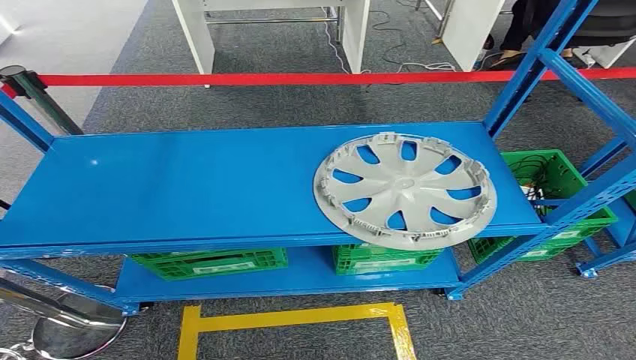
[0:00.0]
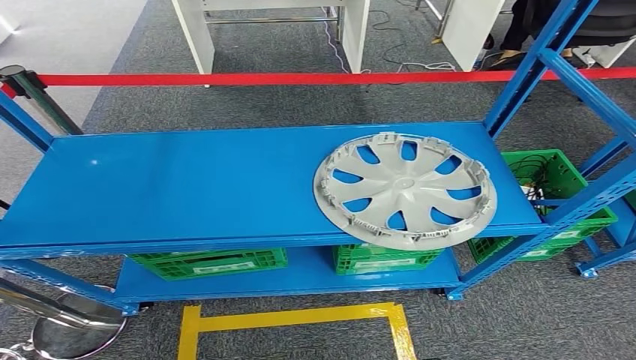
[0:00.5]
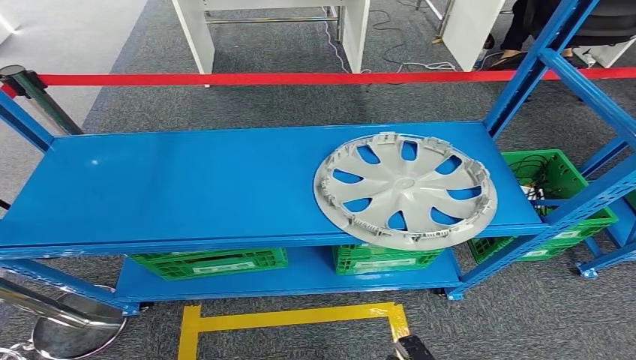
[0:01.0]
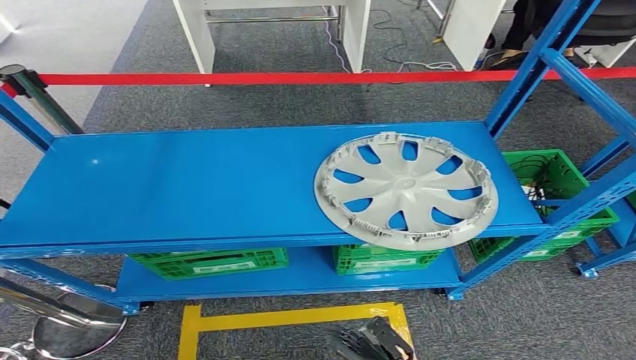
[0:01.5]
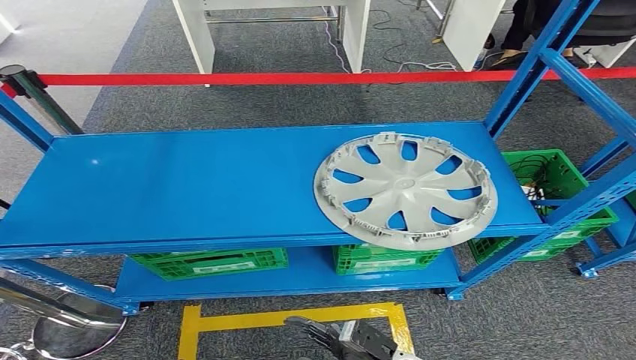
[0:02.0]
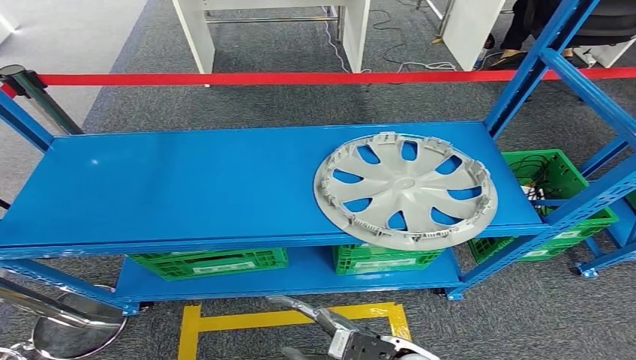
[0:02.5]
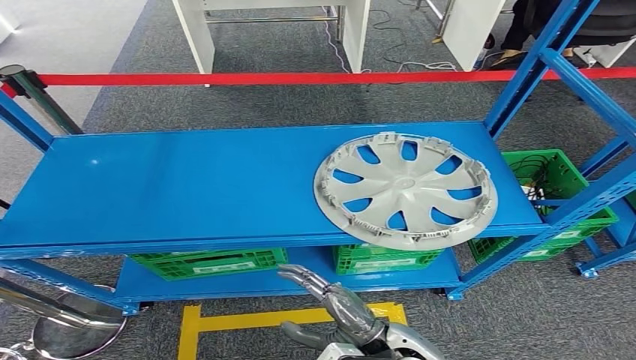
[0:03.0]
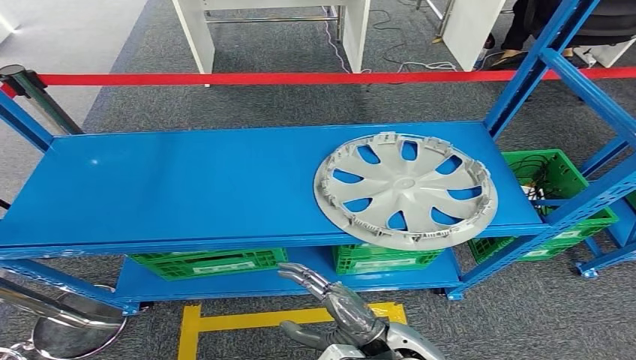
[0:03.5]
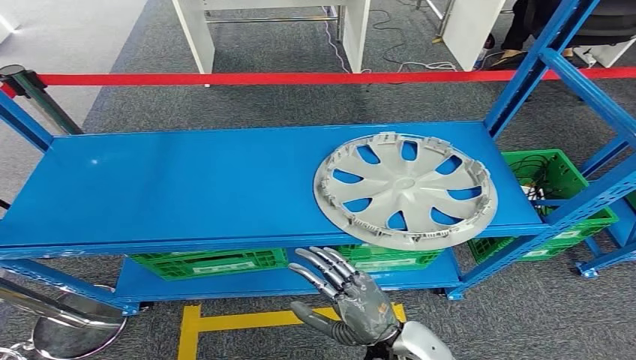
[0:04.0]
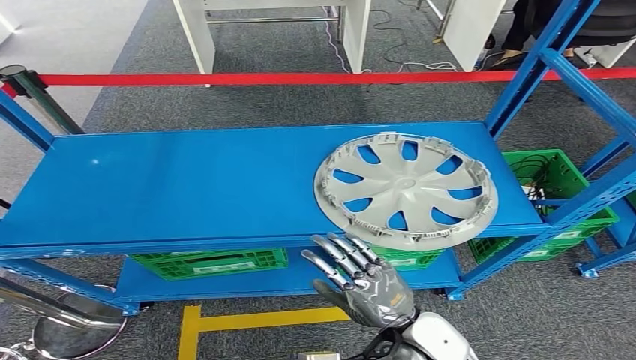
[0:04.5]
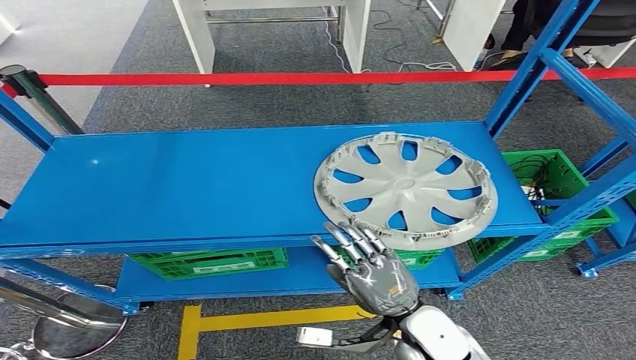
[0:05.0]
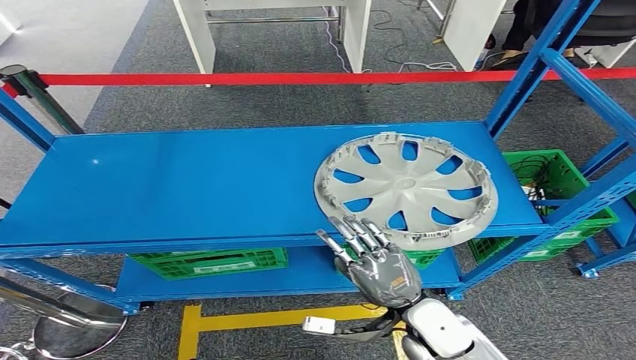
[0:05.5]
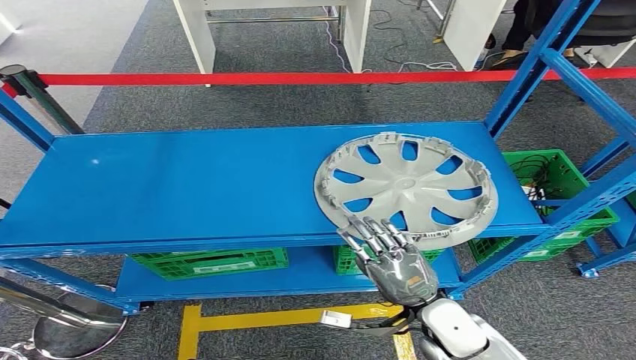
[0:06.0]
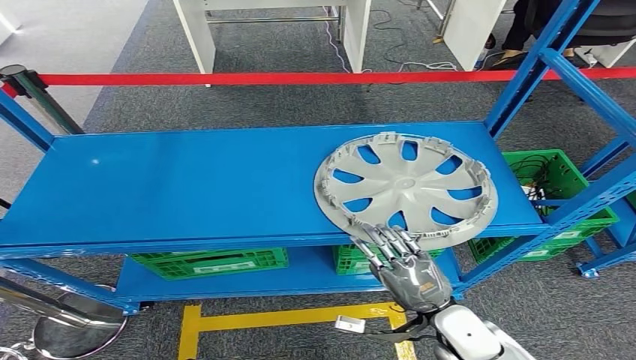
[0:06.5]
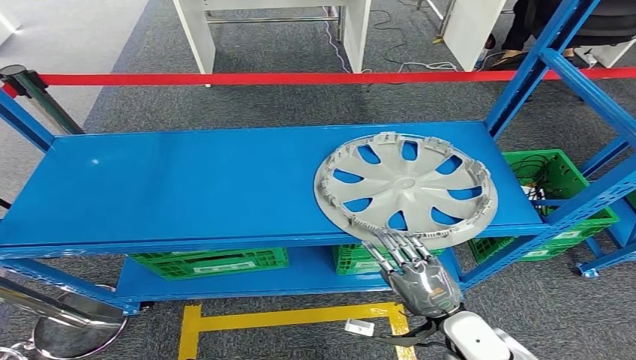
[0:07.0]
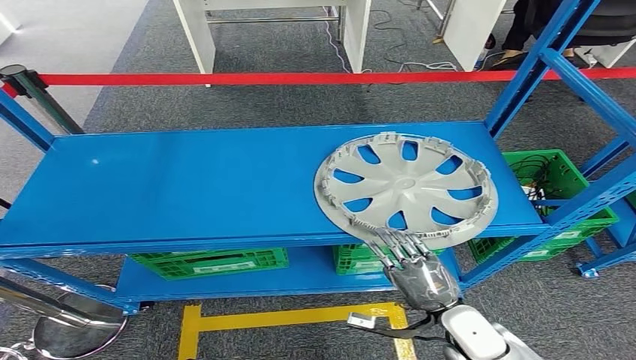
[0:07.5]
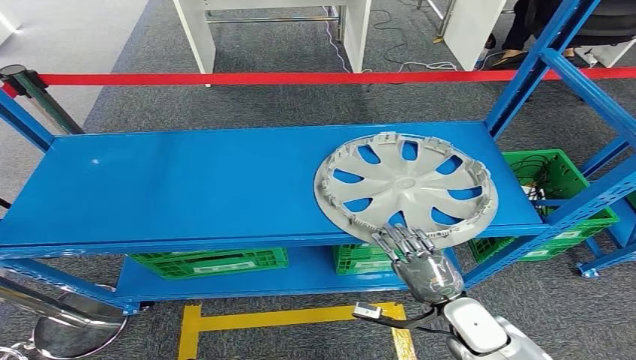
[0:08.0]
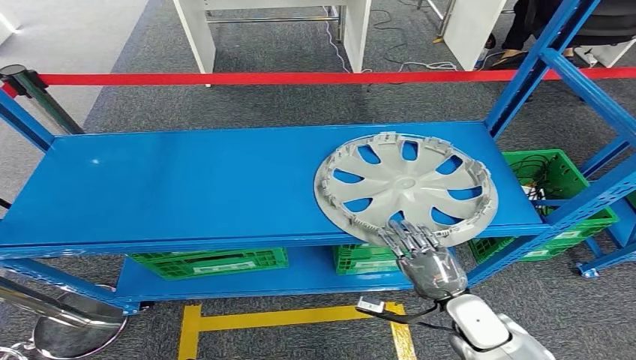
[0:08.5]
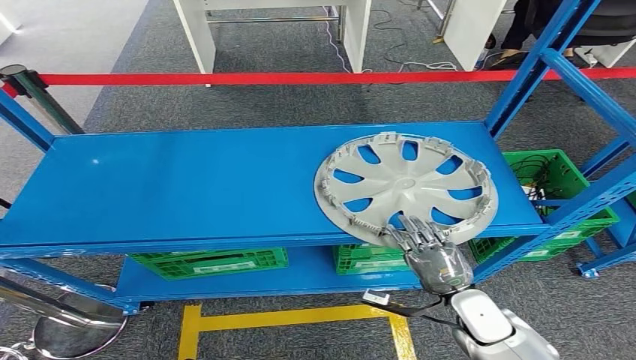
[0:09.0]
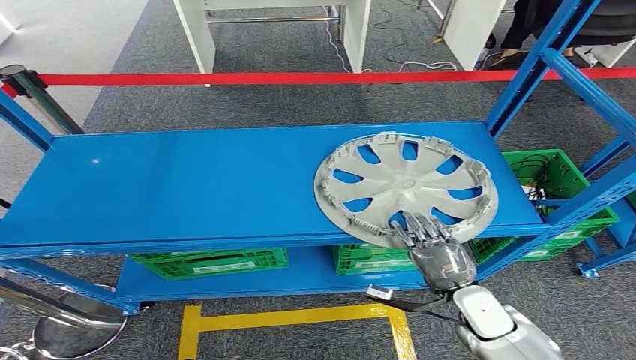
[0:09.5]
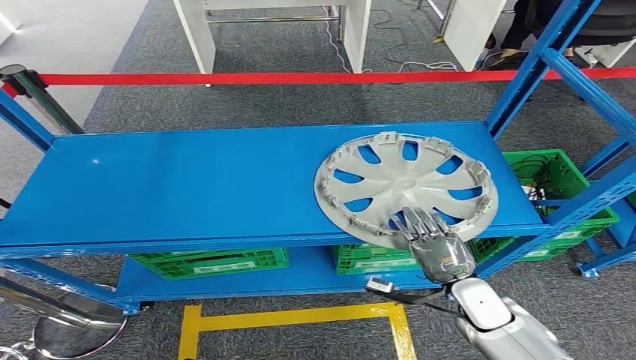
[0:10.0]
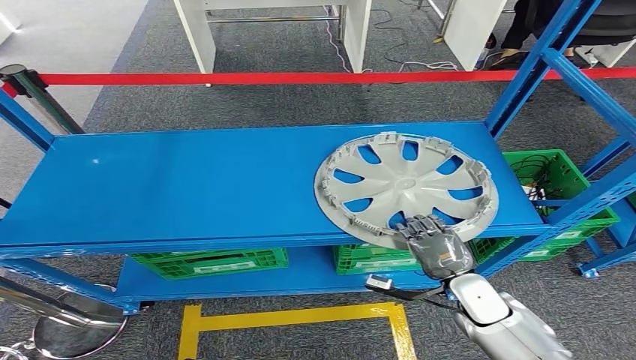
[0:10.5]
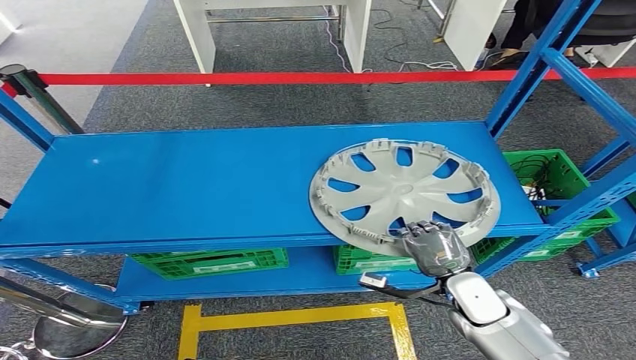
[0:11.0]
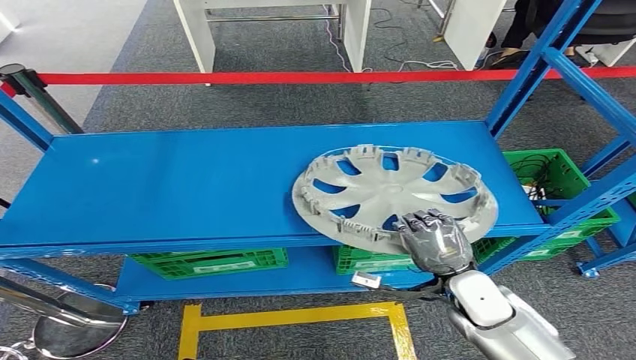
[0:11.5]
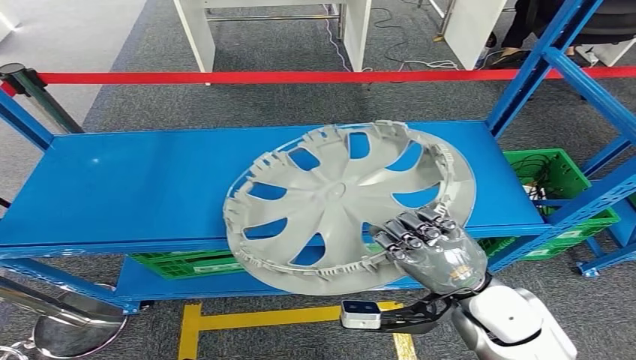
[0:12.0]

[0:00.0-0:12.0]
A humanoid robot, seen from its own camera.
0:02.0 to 0:04.0: The right hand is displaced upward by about 15 cm.
0:04.0 to 0:06.0: The right hand moves to the right, about 5 cm.
0:06.0 to 0:08.0: The right hand is displaced to the right by about 5 cm.
0:08.0 to 0:10.0: There are only small adjustments of the hands.
0:10.0 to 0:12.0: The right hand shifts some 15 cm upward.

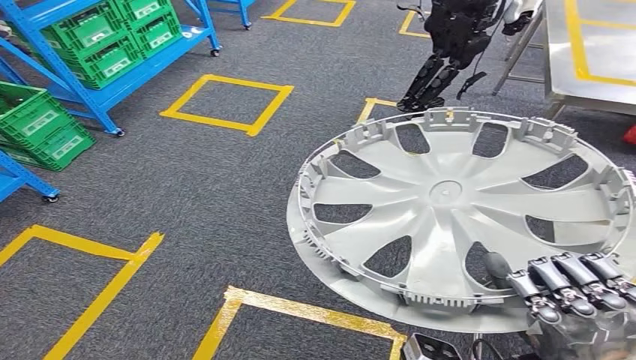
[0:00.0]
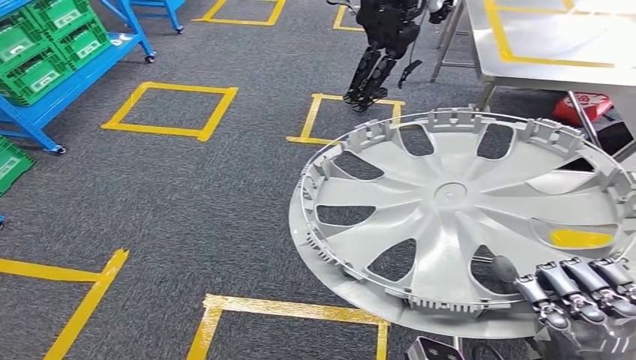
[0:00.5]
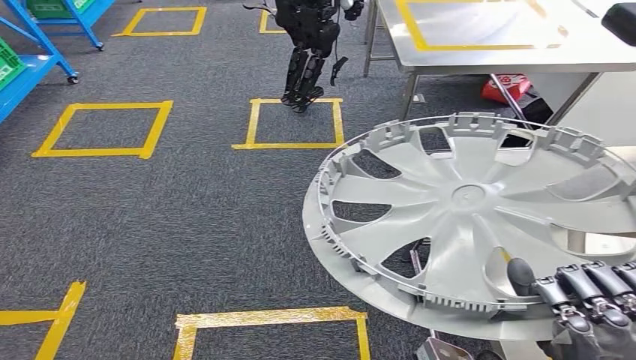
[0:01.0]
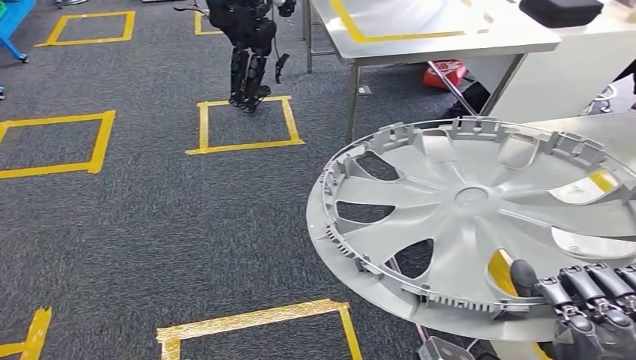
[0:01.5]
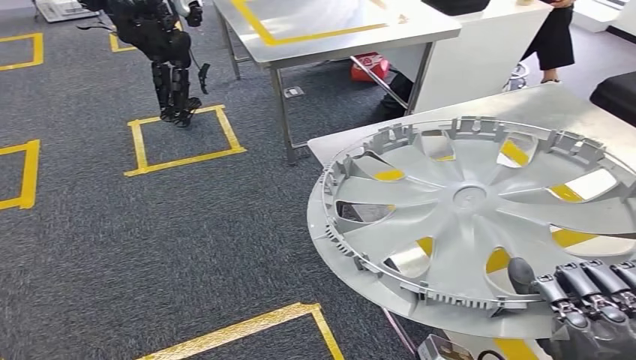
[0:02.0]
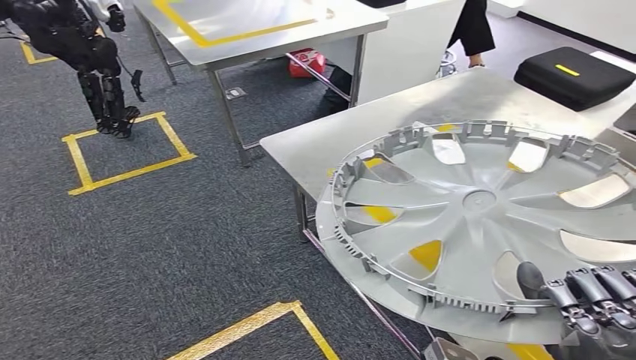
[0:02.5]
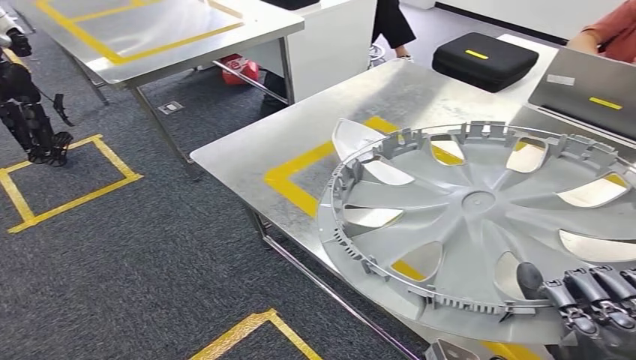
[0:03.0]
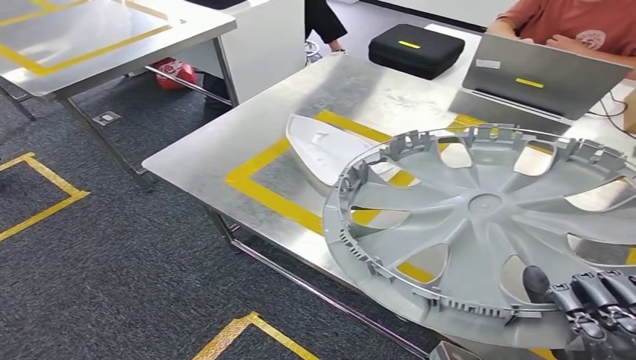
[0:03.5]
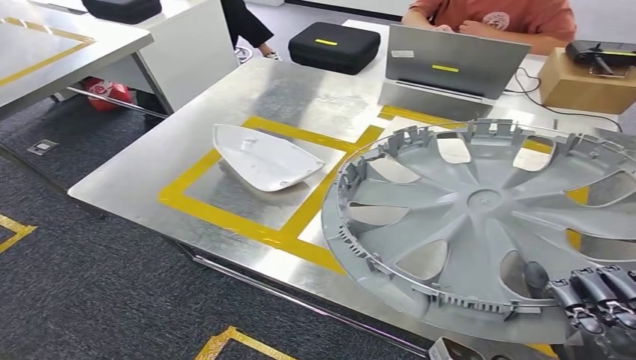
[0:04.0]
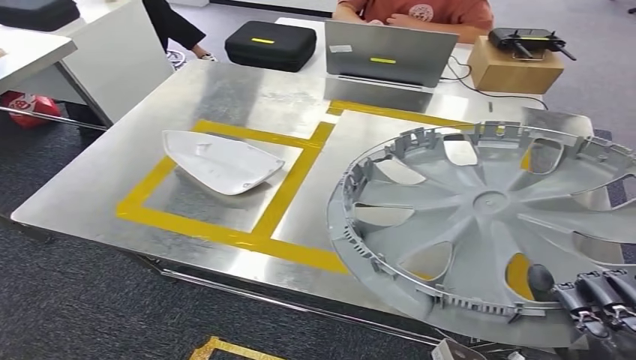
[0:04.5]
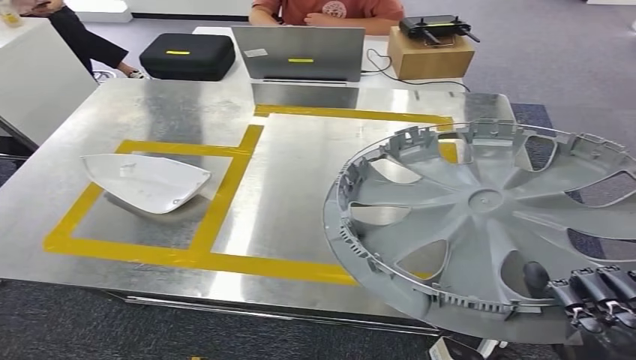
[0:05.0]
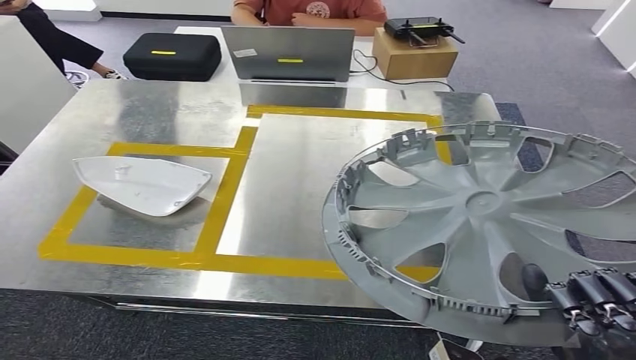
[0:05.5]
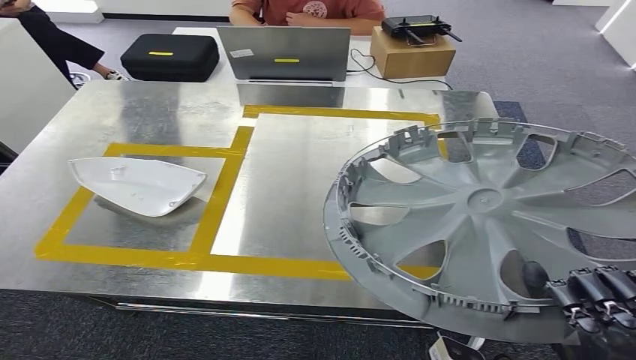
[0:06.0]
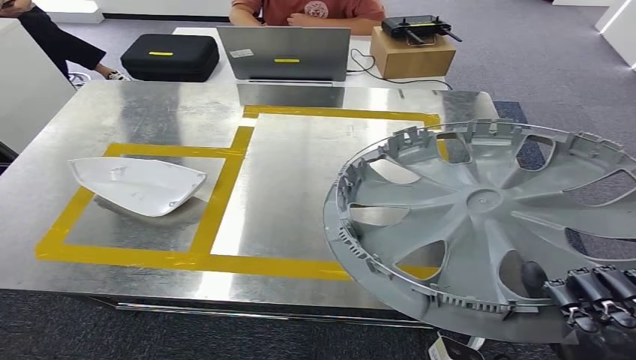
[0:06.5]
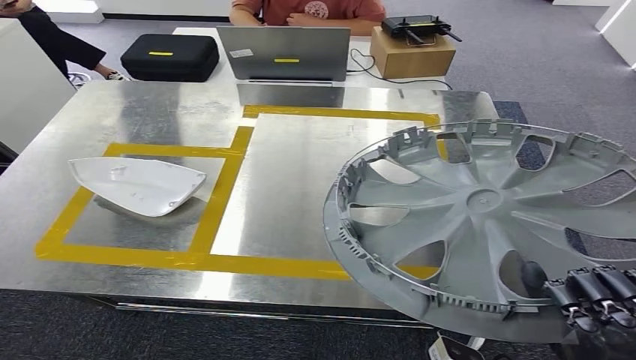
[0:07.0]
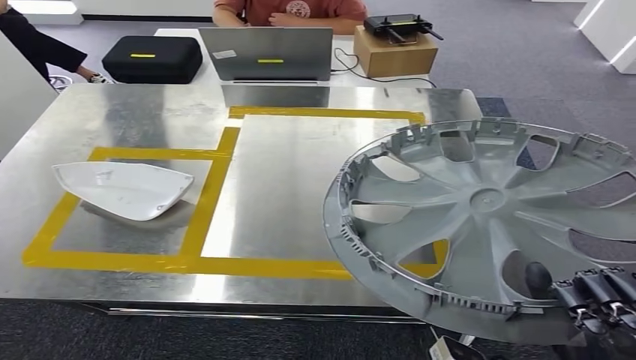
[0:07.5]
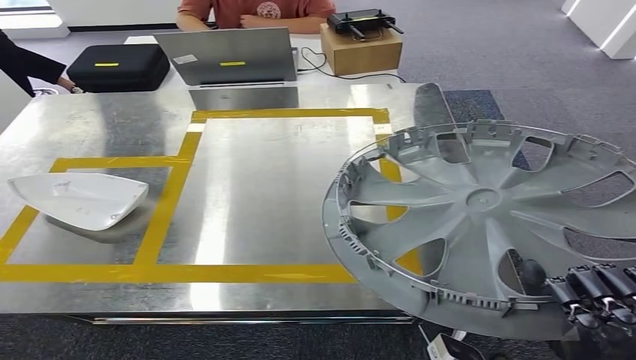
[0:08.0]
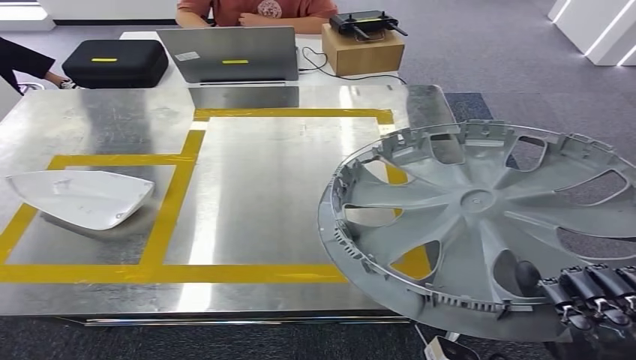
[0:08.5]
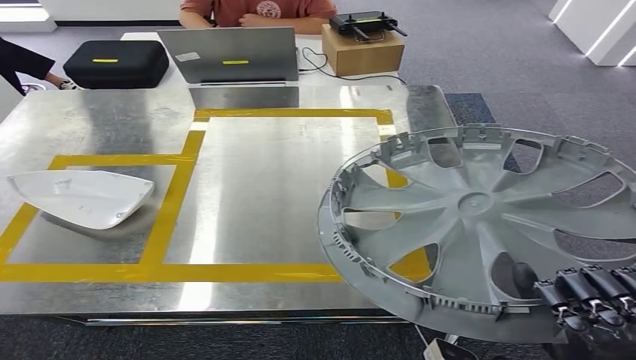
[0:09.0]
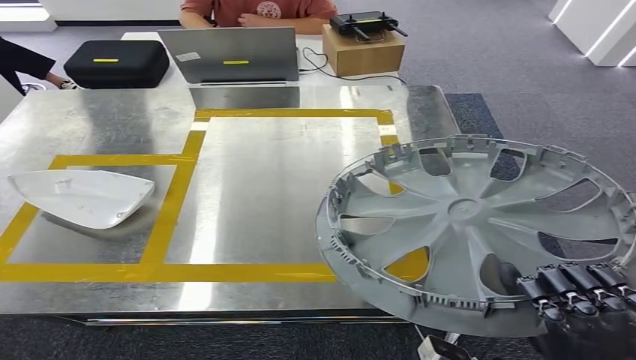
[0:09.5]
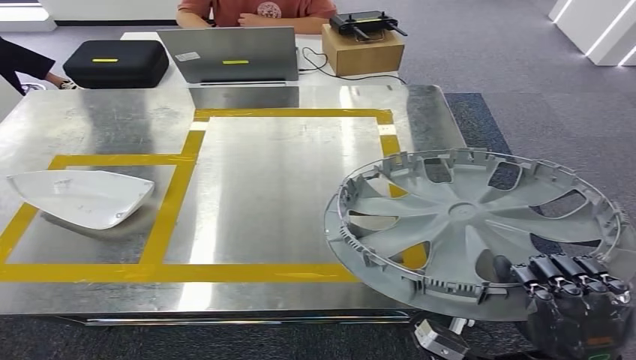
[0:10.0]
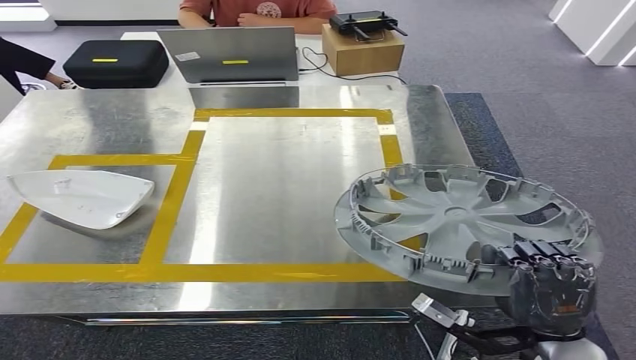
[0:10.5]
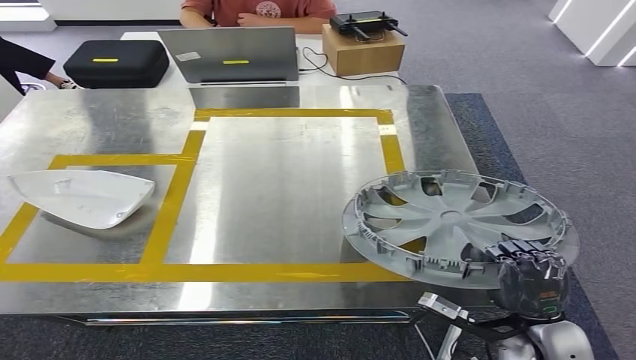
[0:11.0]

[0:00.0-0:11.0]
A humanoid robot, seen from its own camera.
Step, 0:00.0 to 0:04.0: Move the small parts to the workbench.
0:09.0 to 0:11.0: The right hand travels downward and forward by about 15 cm.
